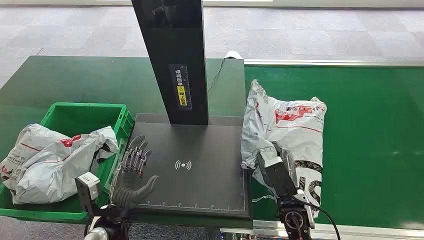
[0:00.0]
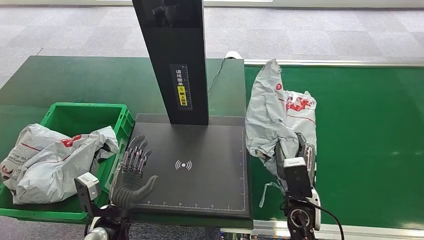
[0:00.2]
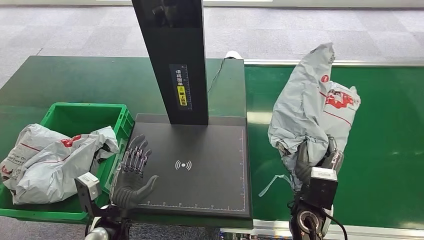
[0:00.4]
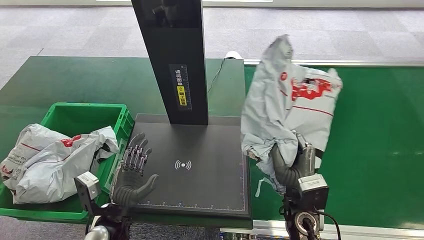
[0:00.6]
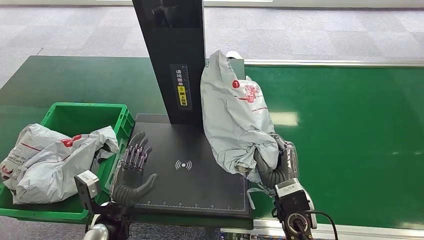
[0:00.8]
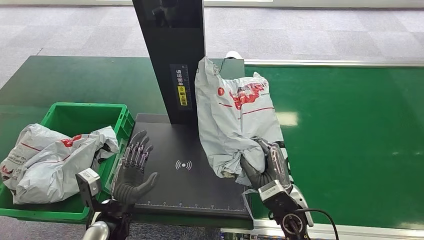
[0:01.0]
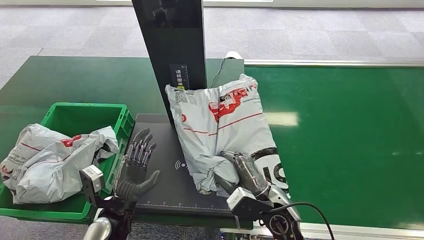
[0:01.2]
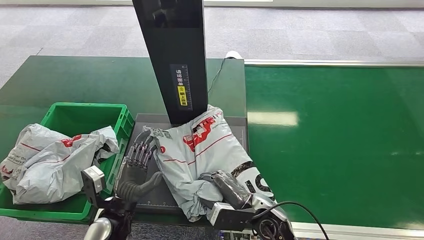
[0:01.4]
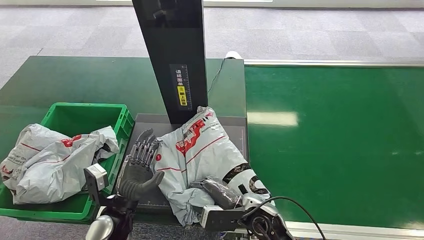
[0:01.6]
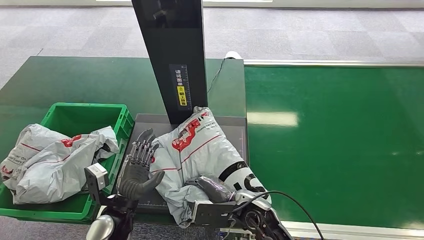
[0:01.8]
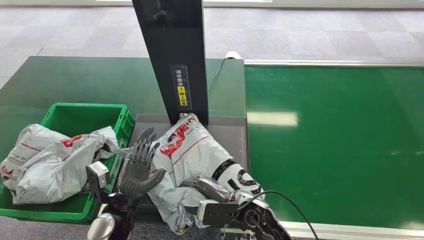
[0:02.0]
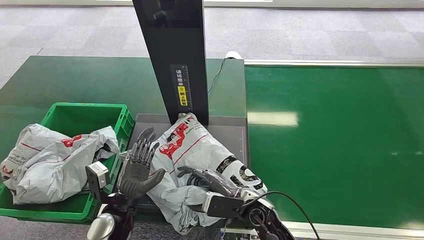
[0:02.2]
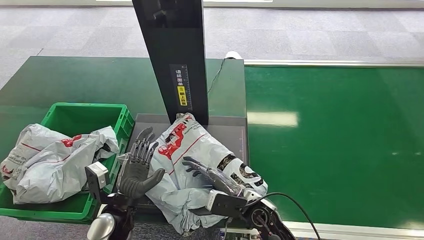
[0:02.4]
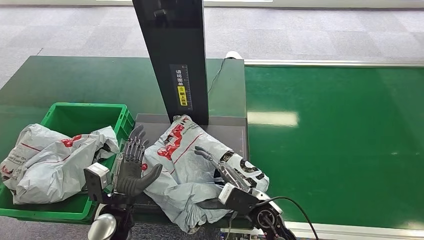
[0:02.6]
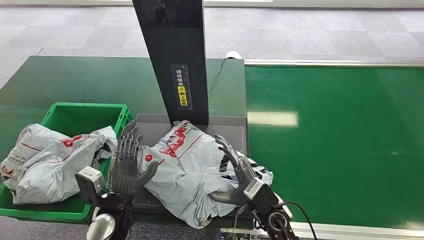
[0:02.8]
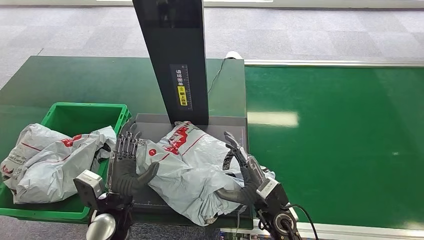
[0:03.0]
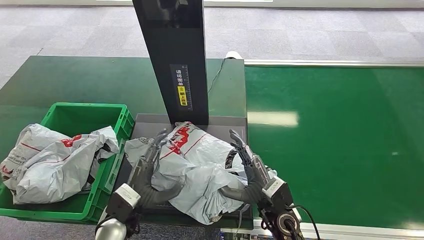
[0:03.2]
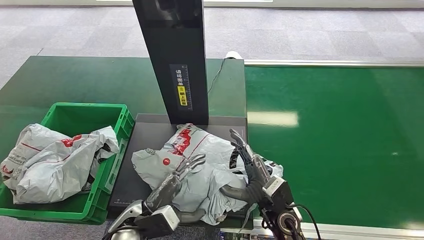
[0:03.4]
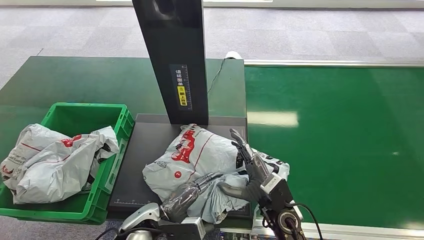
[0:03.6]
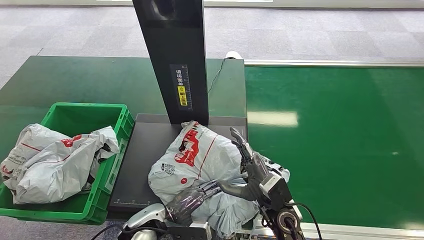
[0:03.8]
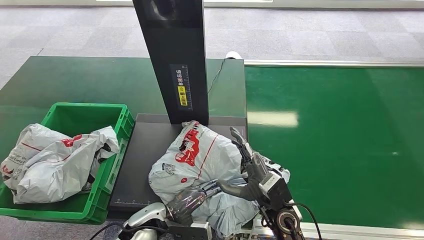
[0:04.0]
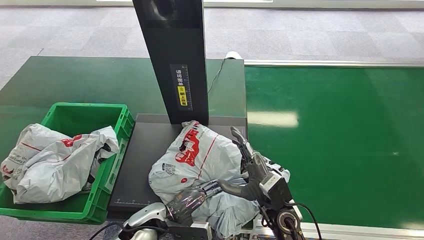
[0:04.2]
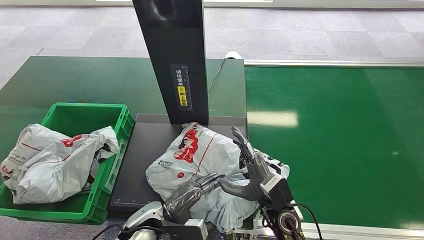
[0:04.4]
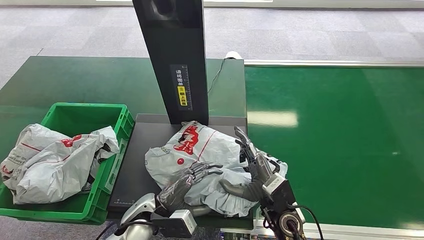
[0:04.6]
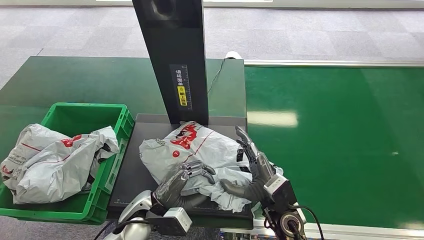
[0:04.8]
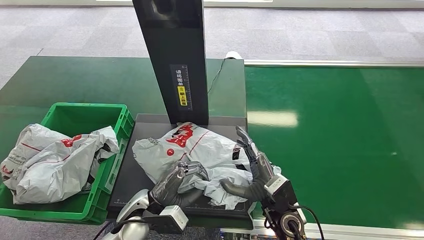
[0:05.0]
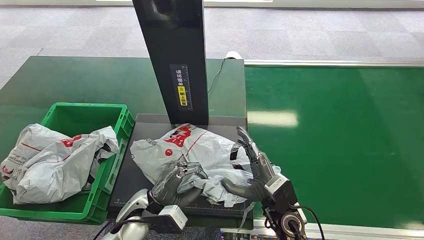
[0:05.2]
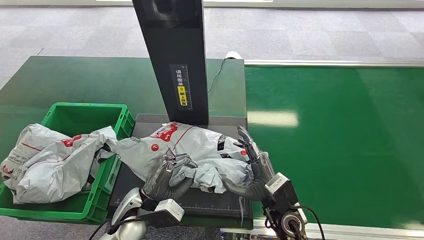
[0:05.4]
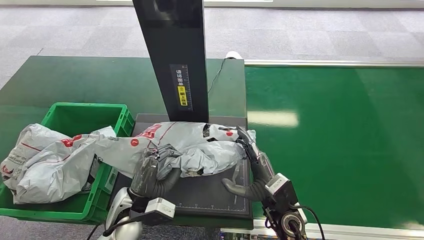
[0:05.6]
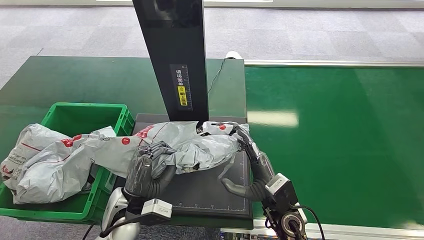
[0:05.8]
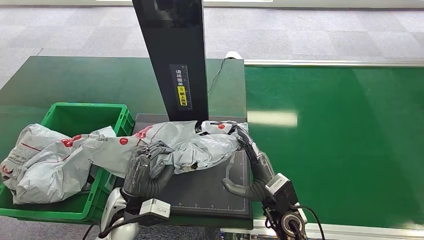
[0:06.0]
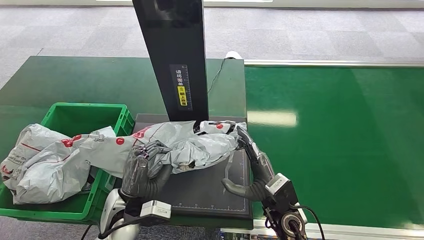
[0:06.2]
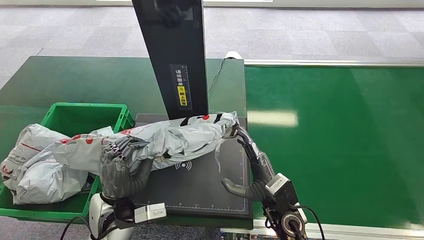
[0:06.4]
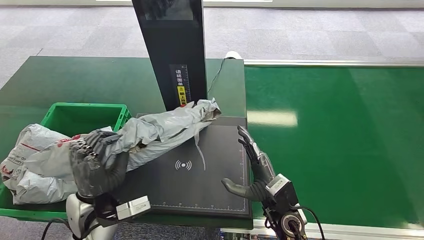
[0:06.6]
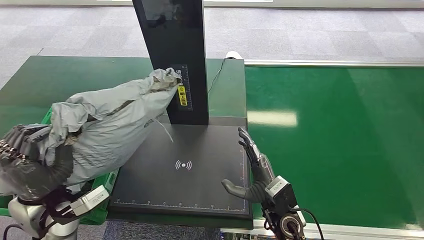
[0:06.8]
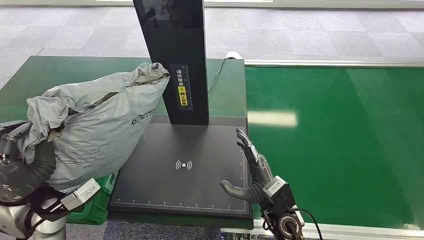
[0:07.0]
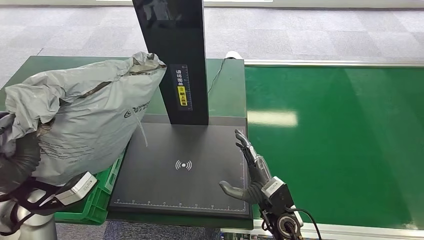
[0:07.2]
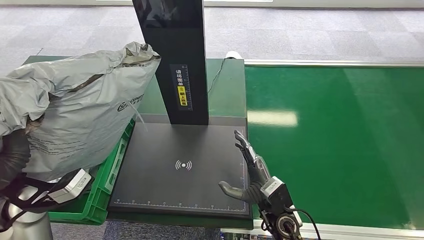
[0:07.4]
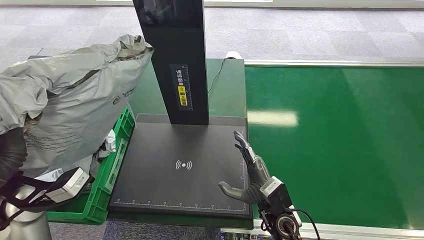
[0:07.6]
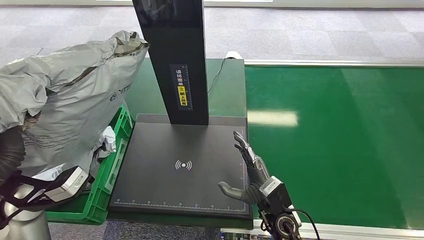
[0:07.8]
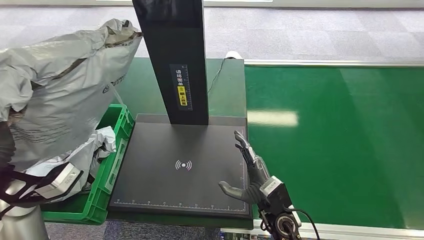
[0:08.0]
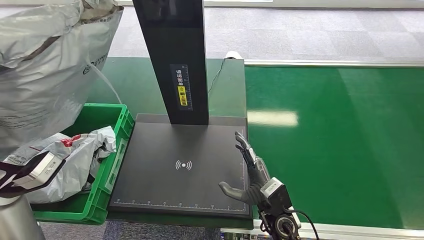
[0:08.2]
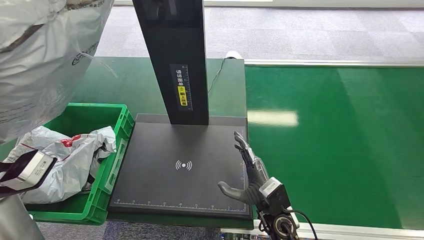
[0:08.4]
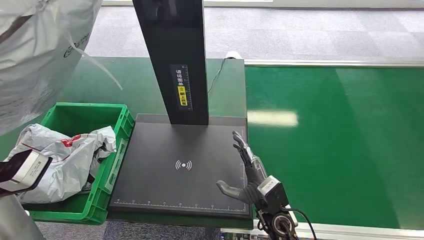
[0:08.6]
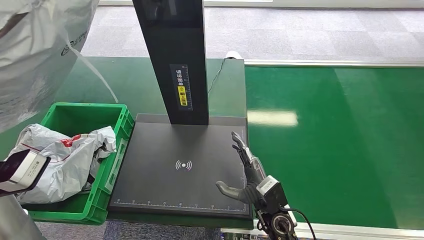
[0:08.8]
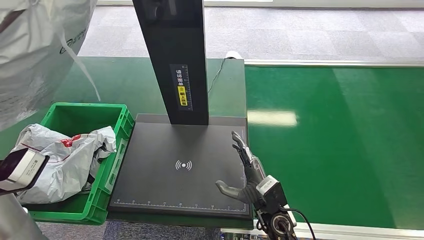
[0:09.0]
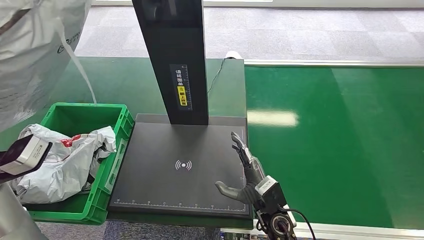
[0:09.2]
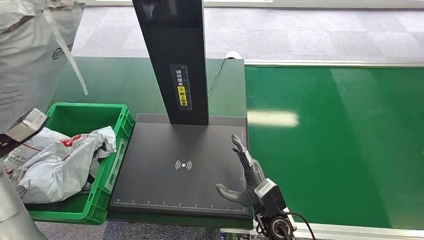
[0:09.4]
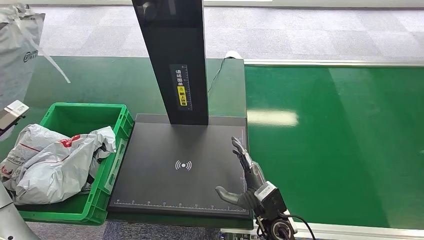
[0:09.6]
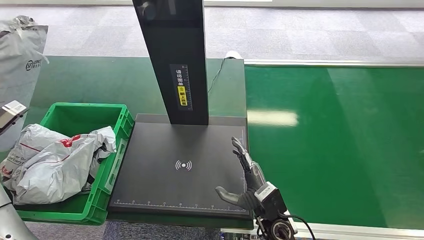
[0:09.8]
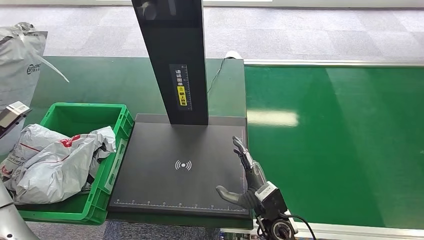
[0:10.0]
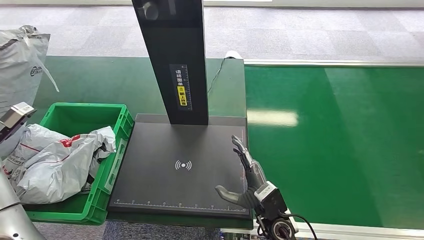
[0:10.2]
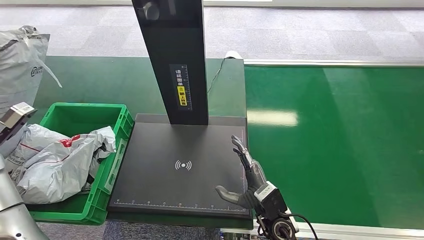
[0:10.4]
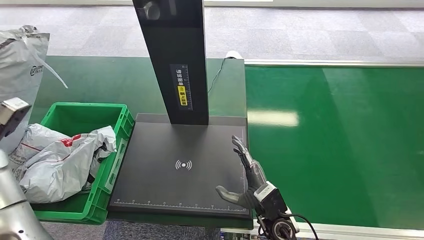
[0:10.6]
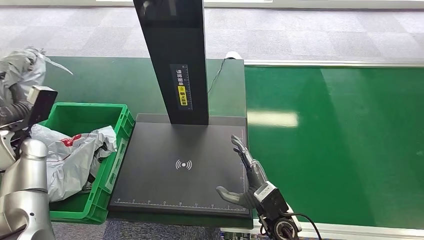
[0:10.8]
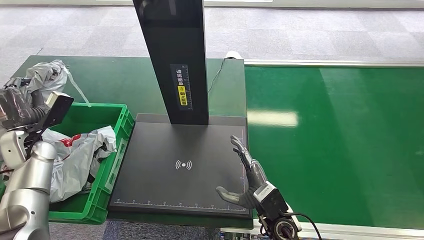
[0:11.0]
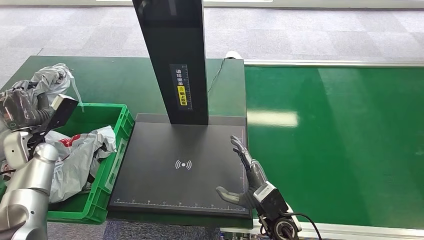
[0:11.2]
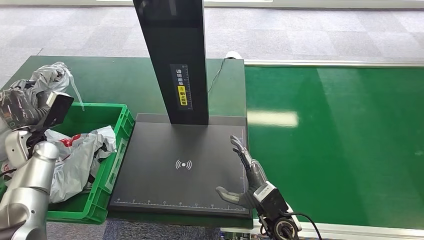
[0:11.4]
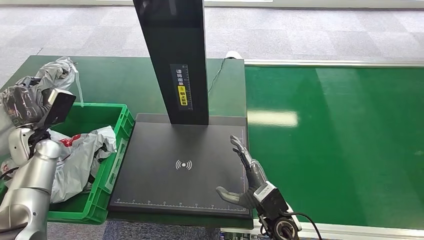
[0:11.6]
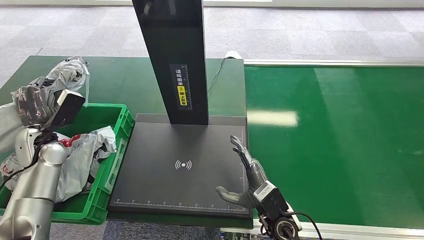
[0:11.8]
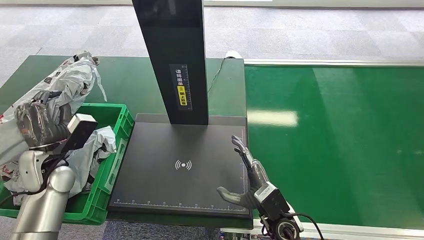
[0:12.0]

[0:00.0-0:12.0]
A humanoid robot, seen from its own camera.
Step, 0:00.0 to 0:00.2: Pick up the package from the conveyor belt.
0:03.0 to 0:04.4: The left hand shifts some 5 cm to the right.
0:04.4 to 0:06.0: The left hand is displaced upward by about 5 cm.
0:09.0 to 0:10.4: The left hand heads to the left, downward and forward, covering some 15 cm.
0:10.4 to 0:12.0: The left hand moves to the right and downward, approximately 15 cm.

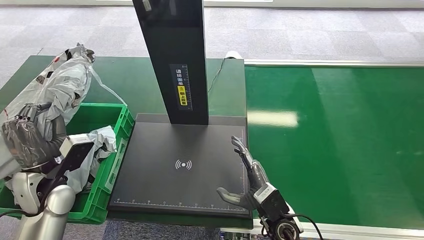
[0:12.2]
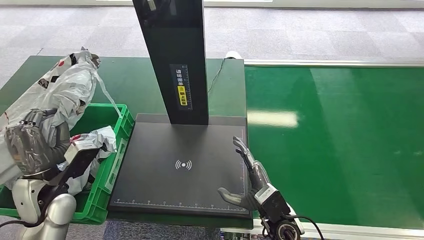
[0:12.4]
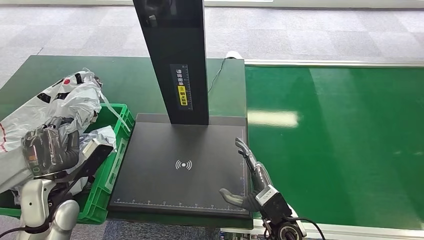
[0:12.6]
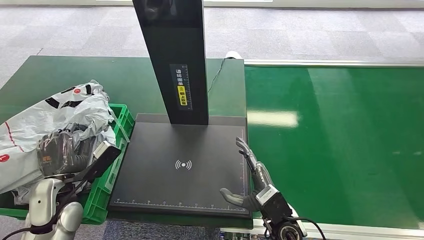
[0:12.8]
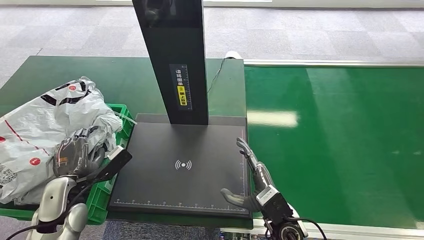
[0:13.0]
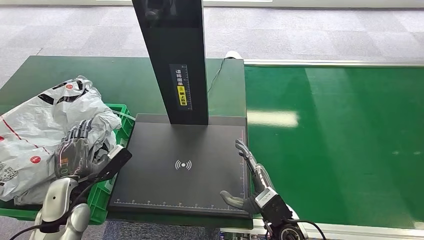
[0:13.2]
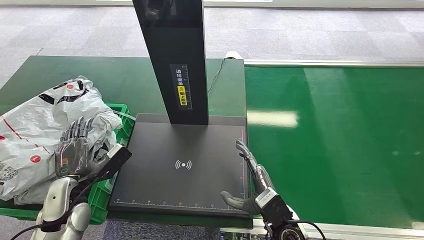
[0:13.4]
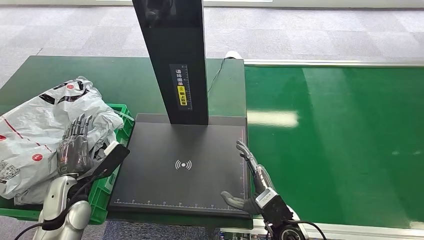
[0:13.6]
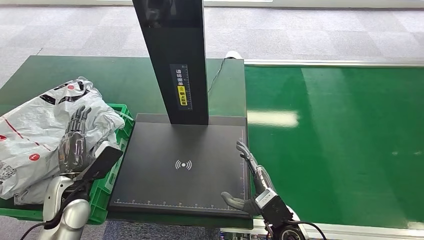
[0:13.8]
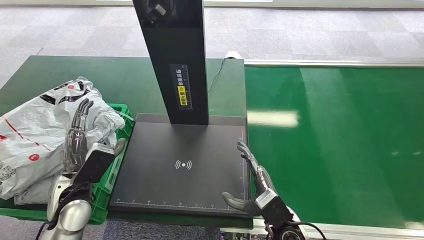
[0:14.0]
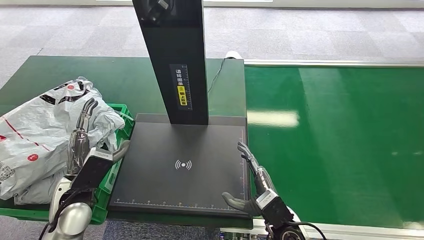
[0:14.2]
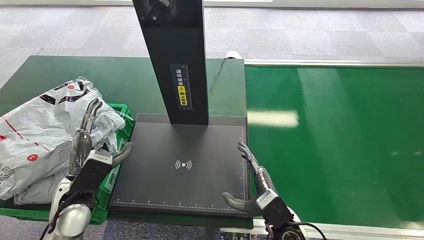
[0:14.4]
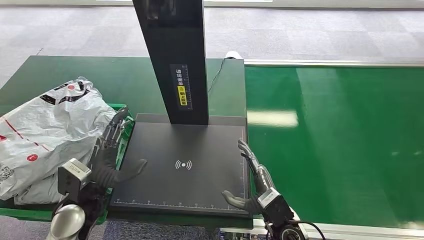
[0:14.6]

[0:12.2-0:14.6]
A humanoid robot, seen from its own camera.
0:12.2 to 0:13.4: The left hand travels downward by approximately 5 cm.
0:13.4 to 0:14.6: The left hand heads to the right, covering about 5 cm.
